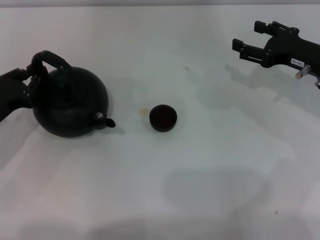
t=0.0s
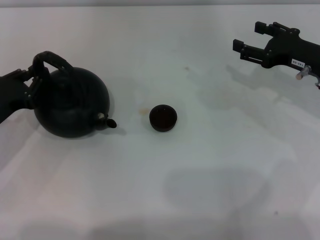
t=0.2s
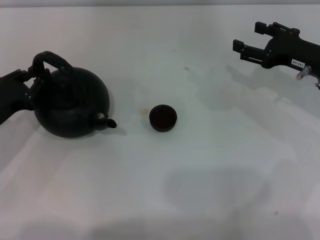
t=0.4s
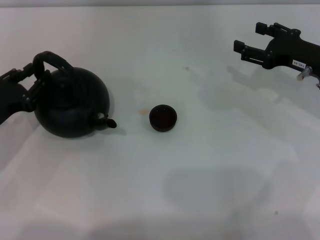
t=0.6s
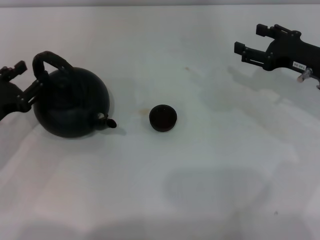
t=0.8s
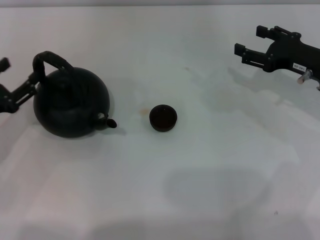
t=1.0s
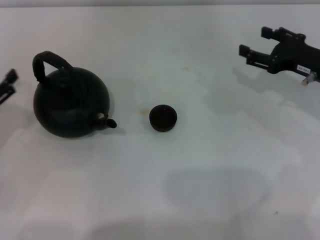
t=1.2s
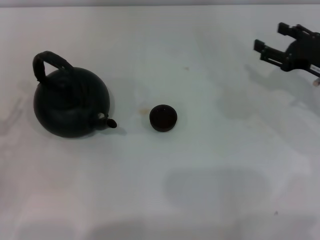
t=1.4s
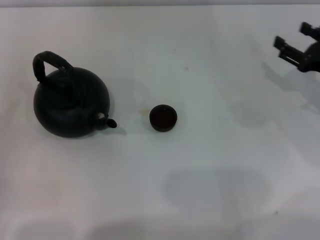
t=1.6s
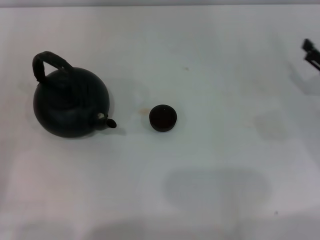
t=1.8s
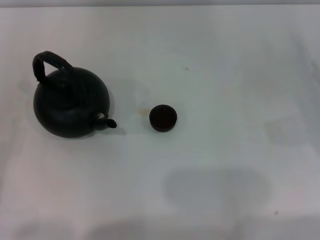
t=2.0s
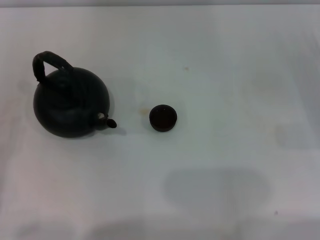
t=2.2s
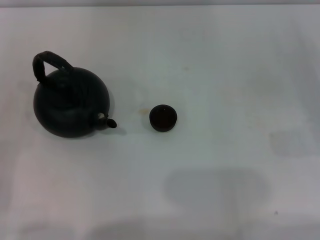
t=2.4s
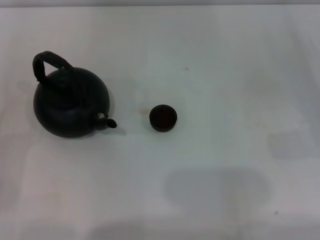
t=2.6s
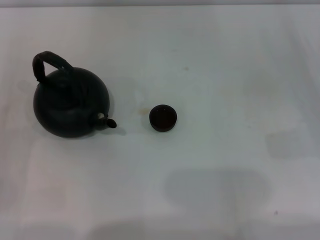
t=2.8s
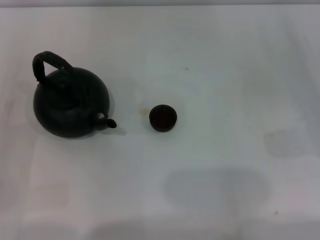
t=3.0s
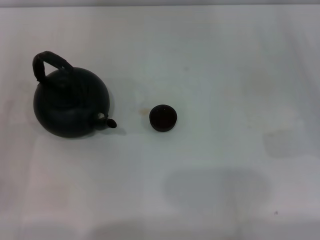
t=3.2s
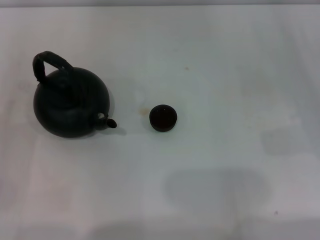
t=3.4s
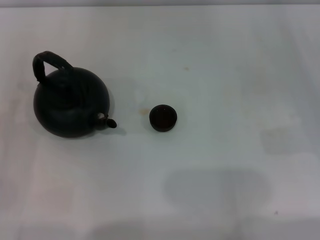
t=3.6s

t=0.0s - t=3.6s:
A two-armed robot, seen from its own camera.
Task of the whole recording: Grasp the handle of the teapot with one hand and pour tea into the teacup.
t=0.0s - t=1.8s: The right gripper shifts about 10 cm to the right and backward, while the left gripper heads backward and to the left, covering approximately 15 cm, and opens its fingers.

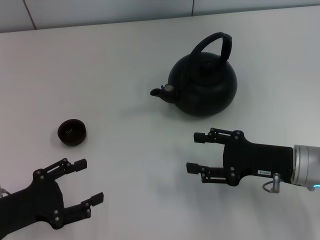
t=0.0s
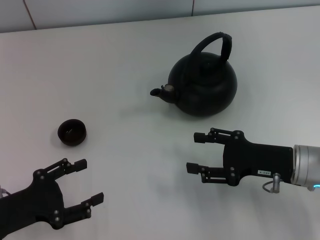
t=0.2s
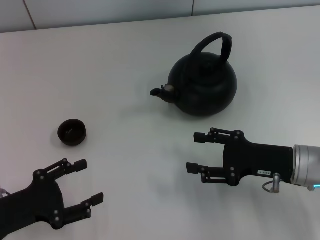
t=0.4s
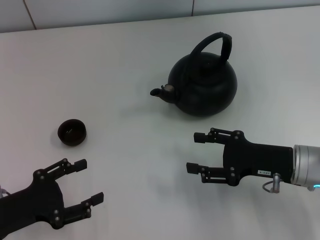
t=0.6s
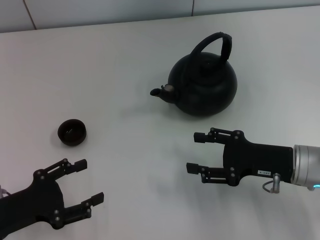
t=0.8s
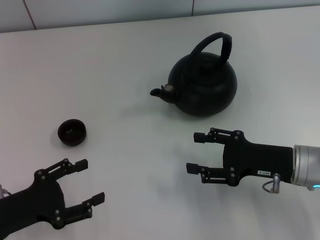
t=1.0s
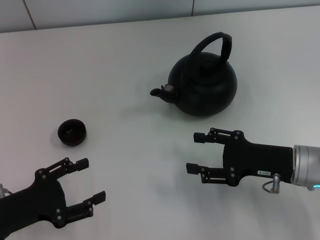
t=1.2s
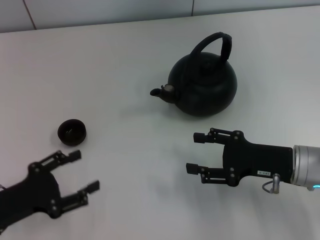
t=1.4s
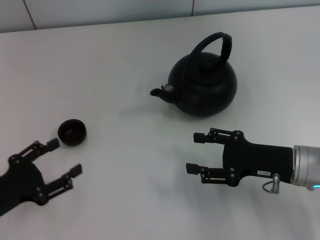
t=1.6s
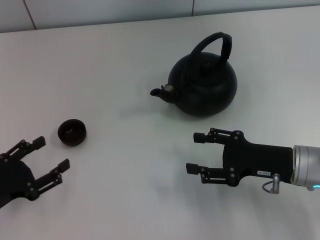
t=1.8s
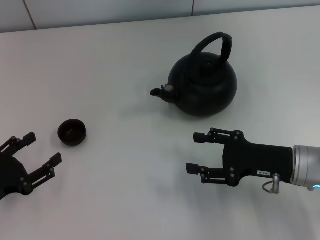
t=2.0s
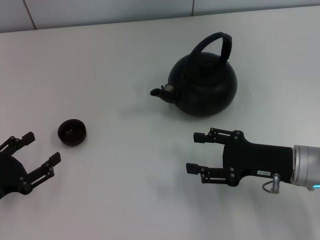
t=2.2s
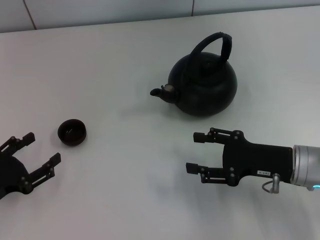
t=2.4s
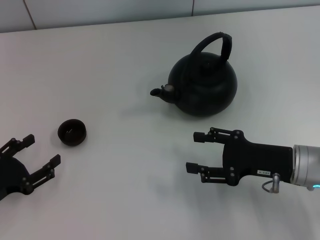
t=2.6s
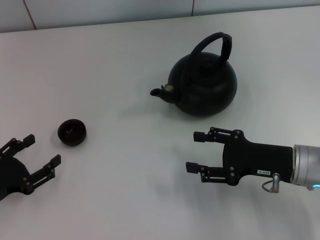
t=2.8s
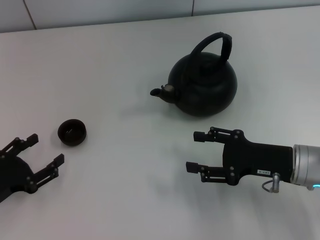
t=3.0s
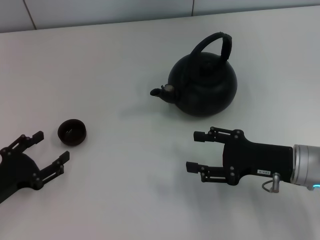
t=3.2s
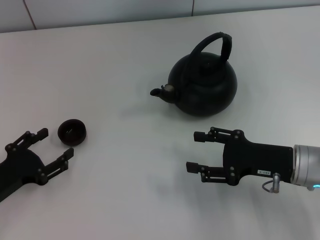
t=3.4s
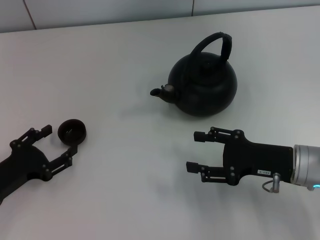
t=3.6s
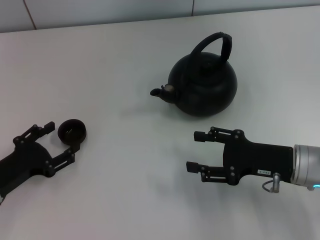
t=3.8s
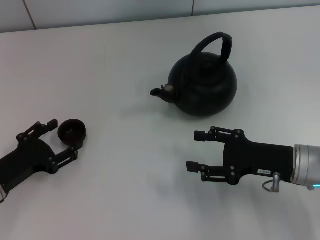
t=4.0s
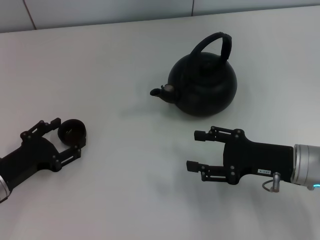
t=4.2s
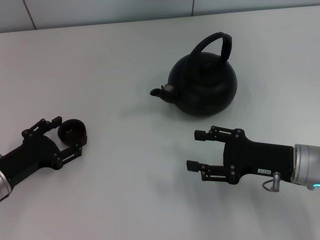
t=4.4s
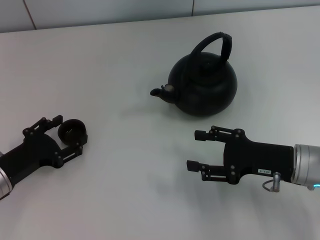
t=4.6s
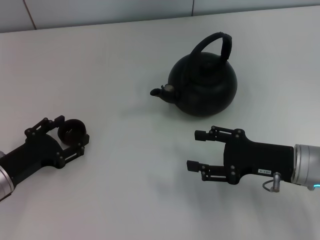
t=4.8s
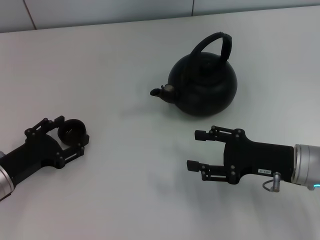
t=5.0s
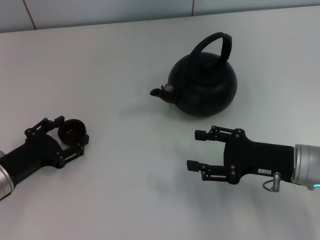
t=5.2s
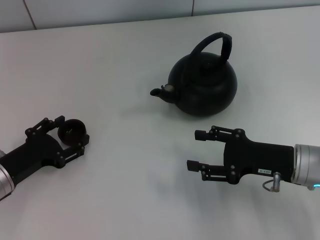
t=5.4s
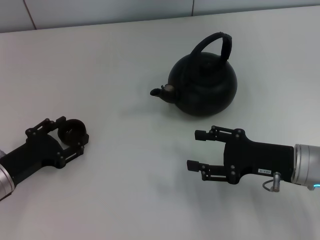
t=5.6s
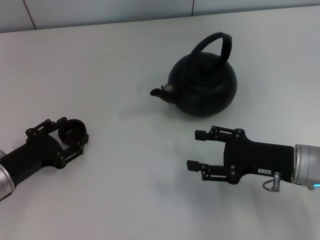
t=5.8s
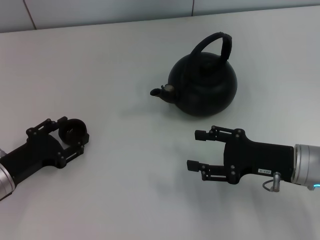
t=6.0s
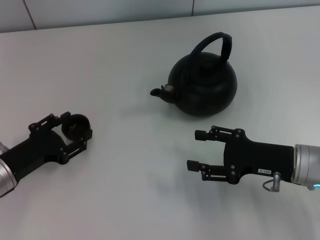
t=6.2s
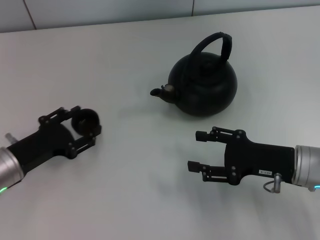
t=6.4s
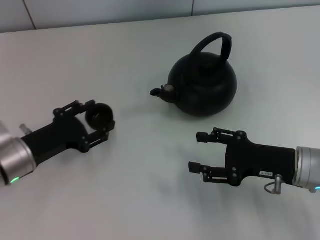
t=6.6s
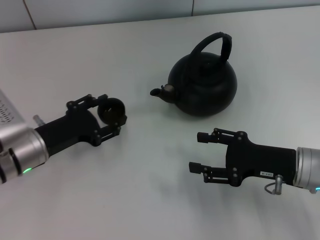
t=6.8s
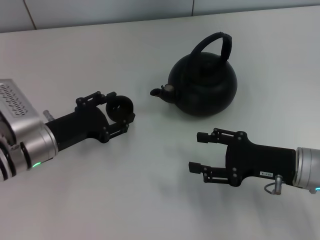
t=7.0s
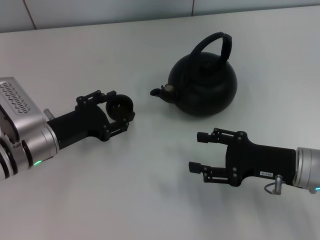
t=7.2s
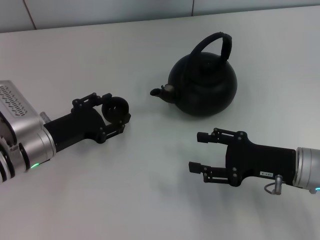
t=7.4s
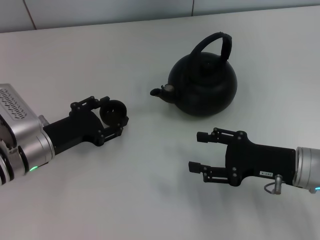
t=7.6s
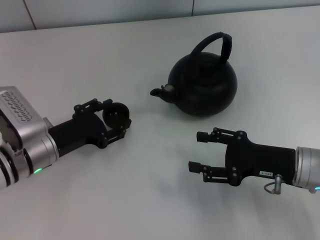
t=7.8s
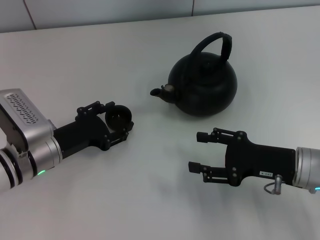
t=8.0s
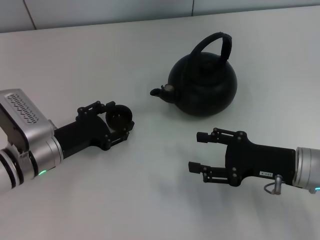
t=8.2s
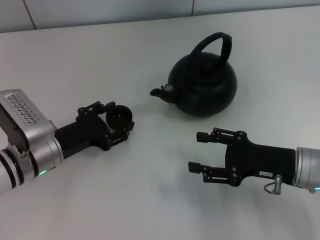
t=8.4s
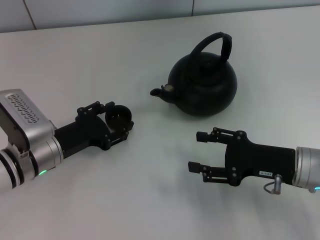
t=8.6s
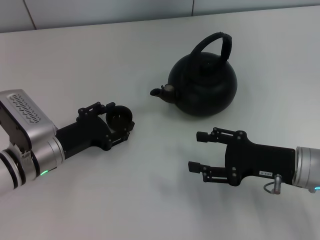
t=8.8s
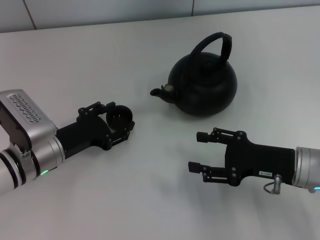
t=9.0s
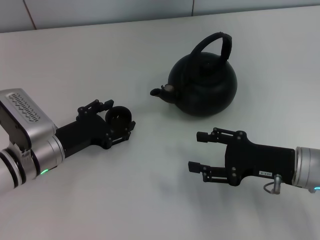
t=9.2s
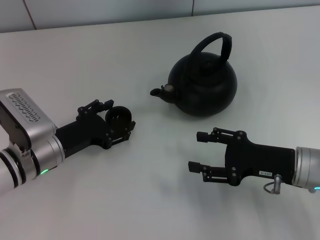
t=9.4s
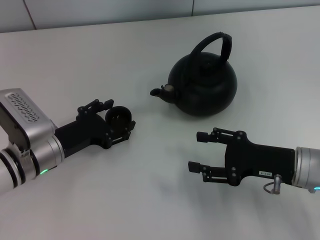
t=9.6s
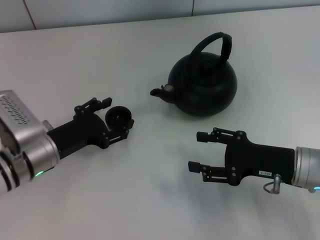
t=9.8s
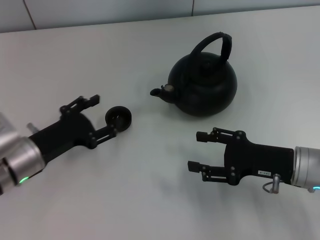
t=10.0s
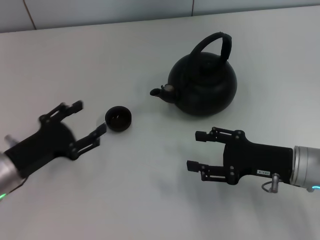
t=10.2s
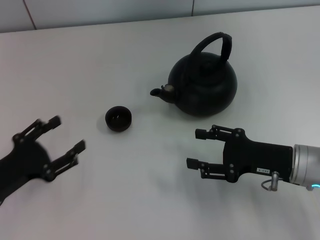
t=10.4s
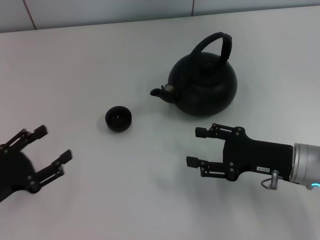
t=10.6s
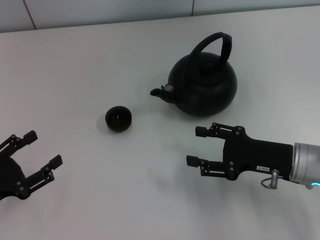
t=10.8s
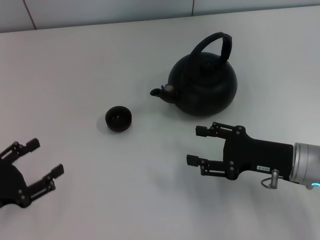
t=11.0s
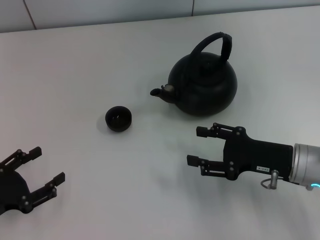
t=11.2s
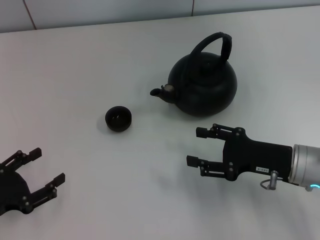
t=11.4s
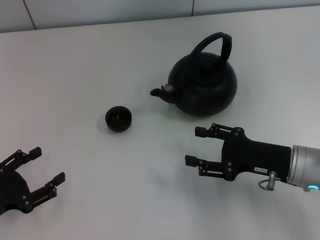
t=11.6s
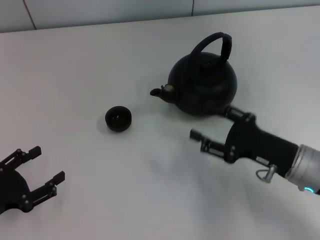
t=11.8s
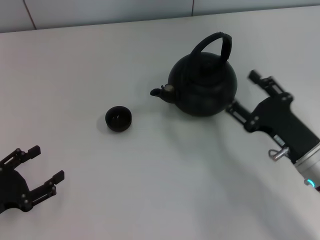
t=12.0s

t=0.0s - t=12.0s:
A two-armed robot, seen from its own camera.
Task of the whole recording: Grasp the handle of the teapot with one hand and pour tea into the teacup.
Step, t=0.0s - t=6.6s: Pick up the teacup with the left gripper.
Step, t=6.8s - t=10.8s: Place the teacup in the center of view with the left gripper.
t=0.0s - t=1.6s: The grippers make only small movements.
t=1.6s - t=3.0s: The grippers stay close to where they were, moving slightly.
t=3.0s - t=4.4s: The left gripper changes place by some 5 cm.
t=4.4s - t=6.0s: The two grippers keep their place.
t=6.0s - t=7.6s: The left gripper goes some 5 cm to the right.
t=7.6s - t=9.0s: The grippers make only small movements.
t=9.0s - t=10.4s: The left gripper shifts approximately 10 cm to the left and backward.

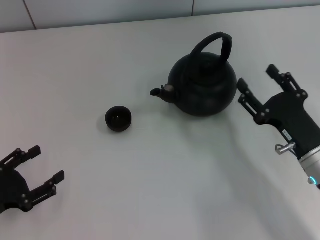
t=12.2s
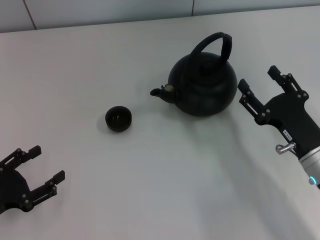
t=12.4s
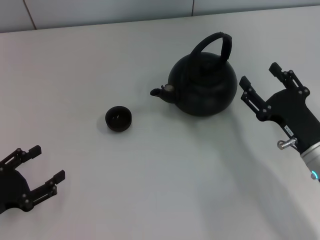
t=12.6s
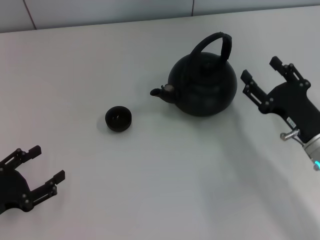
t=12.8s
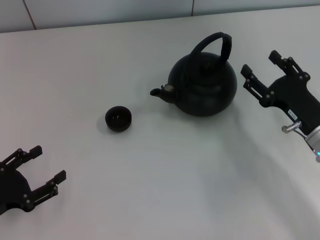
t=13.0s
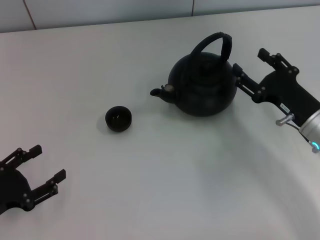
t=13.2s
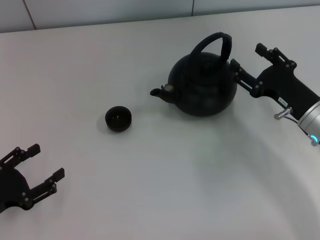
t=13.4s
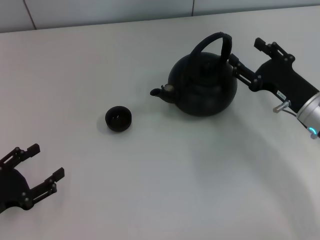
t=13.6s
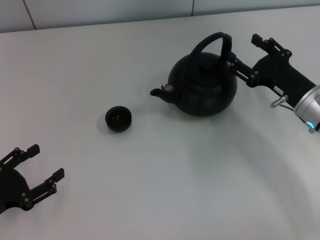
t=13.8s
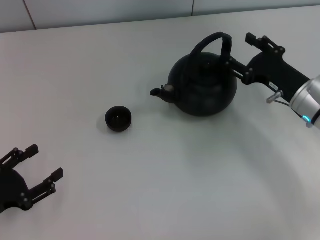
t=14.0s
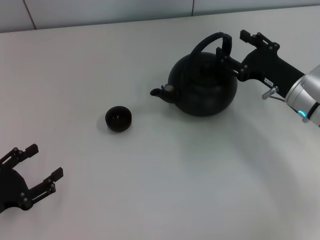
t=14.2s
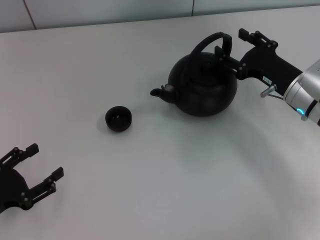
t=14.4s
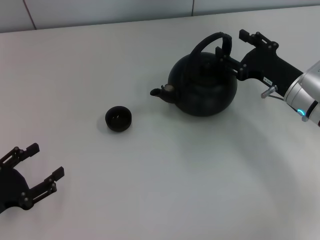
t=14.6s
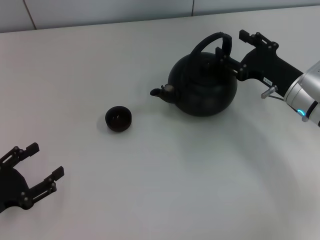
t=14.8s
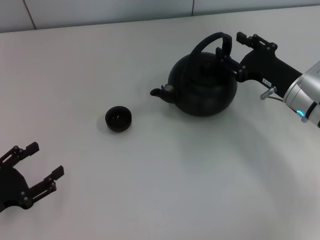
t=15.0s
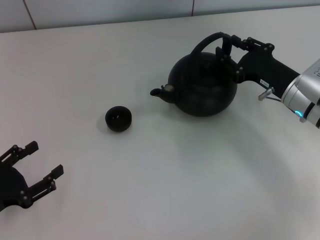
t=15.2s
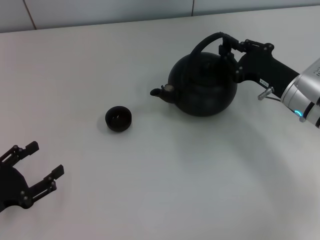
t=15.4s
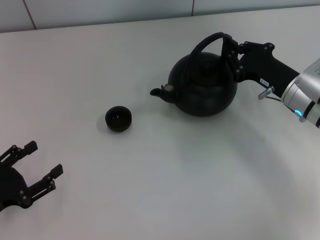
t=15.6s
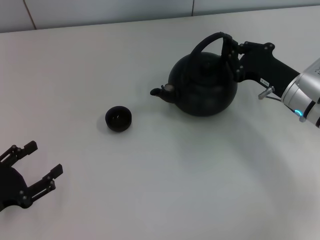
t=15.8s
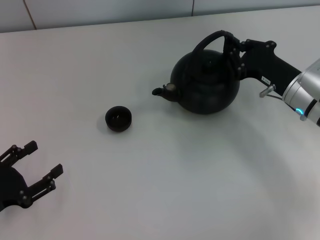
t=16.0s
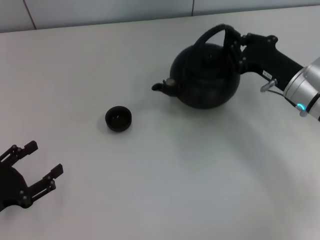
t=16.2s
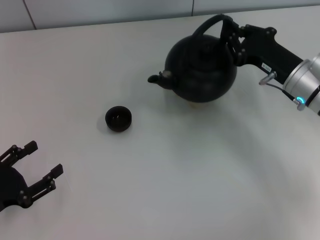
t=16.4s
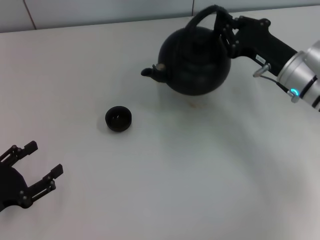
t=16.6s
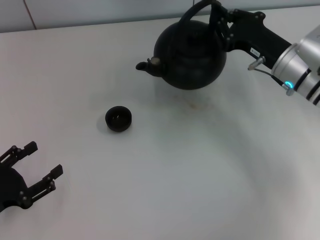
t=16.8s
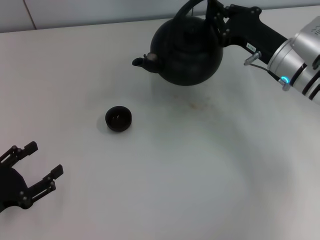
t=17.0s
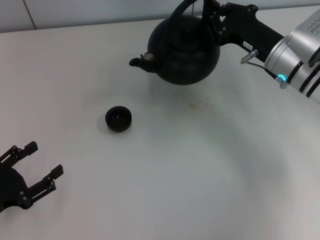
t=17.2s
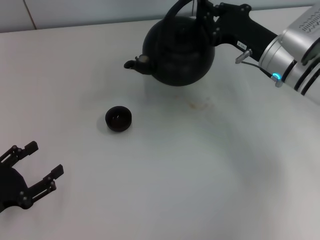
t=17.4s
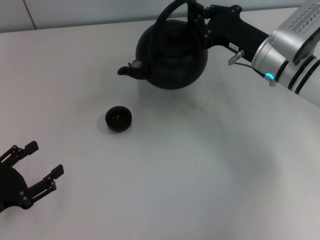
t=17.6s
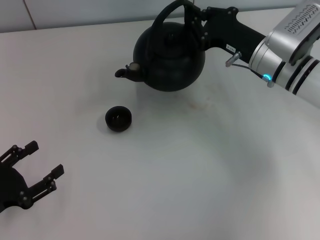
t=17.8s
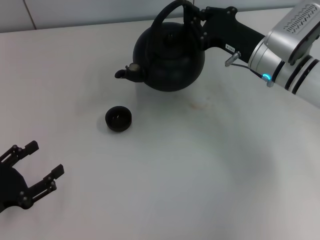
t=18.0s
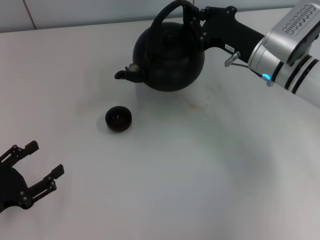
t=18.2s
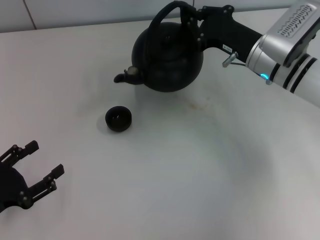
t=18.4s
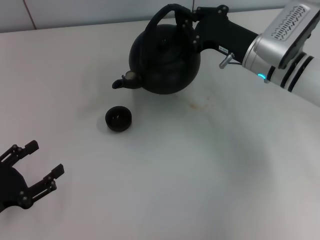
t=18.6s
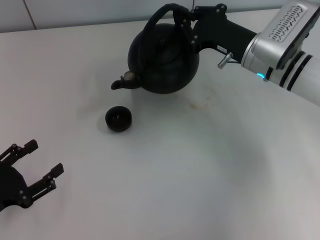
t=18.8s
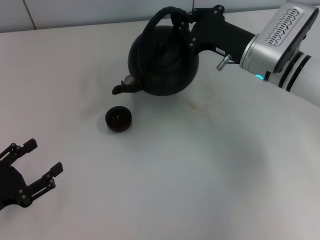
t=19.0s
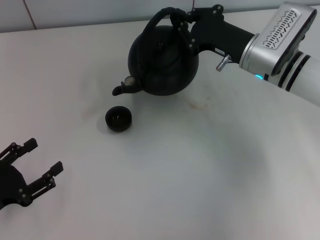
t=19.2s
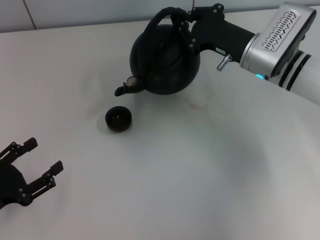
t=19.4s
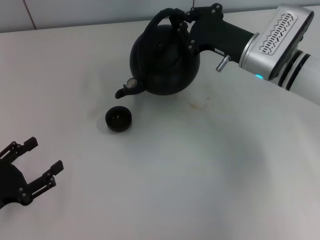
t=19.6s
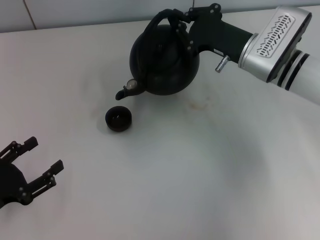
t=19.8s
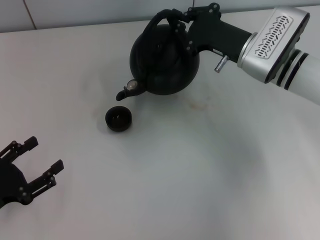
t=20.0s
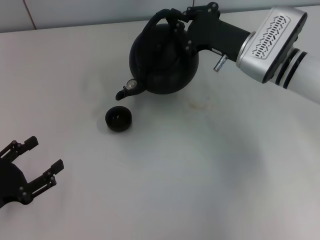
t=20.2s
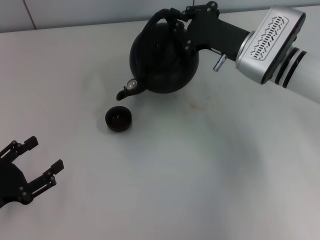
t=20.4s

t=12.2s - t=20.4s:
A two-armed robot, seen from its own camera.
Task of the whole recording: Grasp the handle of the teapot with one hand and pour tea into the teacup.
Step, t=12.2s - t=17.0s: Pick up the teapot with the right gripper.
t=12.2s - t=13.8s: The right gripper goes some 10 cm forward.
t=13.8s - t=15.4s: The right gripper closes its fingers.
t=15.4s - t=17.2s: The right gripper changes place by some 5 cm, and closes up.
t=17.2s - t=18.8s: The grippers make only small movements.
t=18.8s - t=20.4s: The grippers make only small movements.
